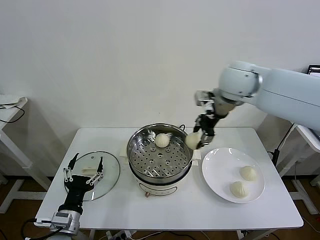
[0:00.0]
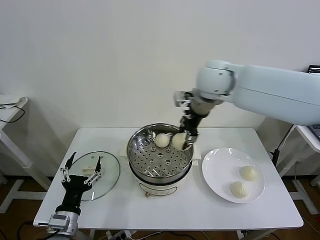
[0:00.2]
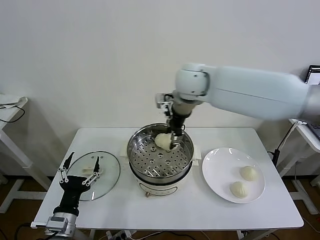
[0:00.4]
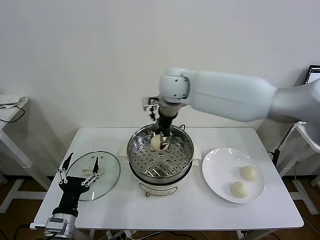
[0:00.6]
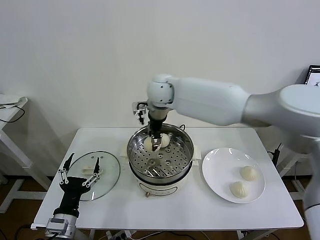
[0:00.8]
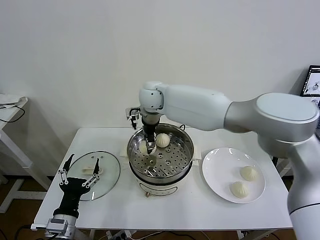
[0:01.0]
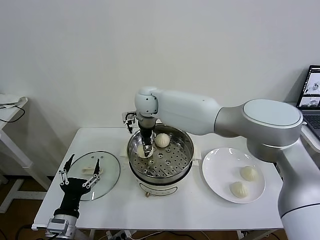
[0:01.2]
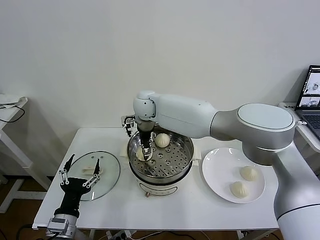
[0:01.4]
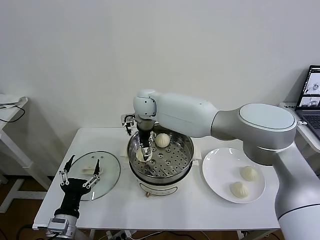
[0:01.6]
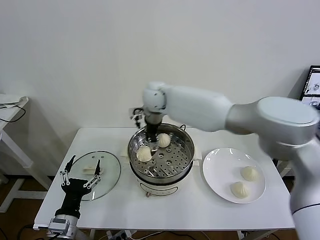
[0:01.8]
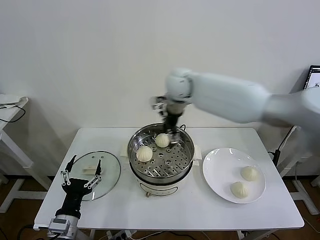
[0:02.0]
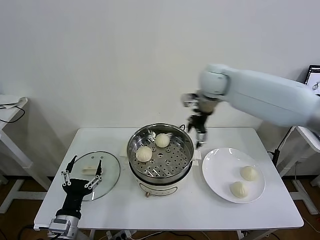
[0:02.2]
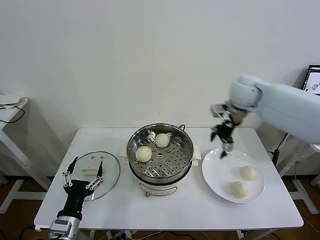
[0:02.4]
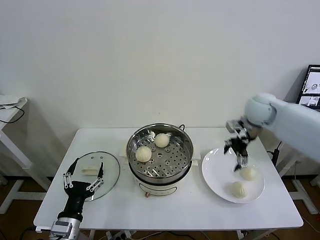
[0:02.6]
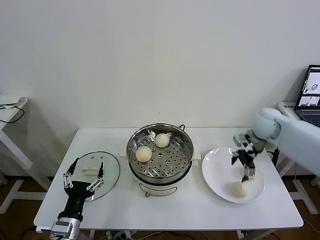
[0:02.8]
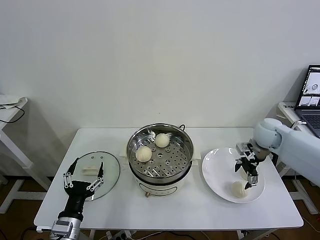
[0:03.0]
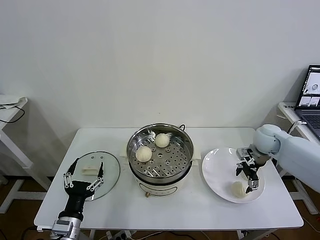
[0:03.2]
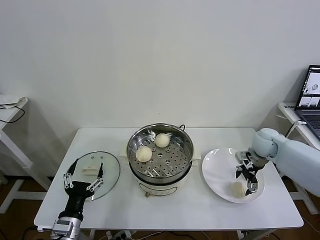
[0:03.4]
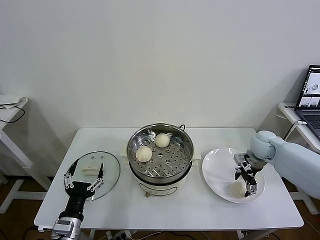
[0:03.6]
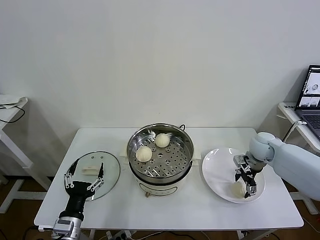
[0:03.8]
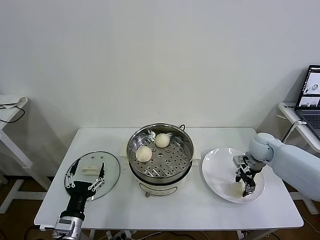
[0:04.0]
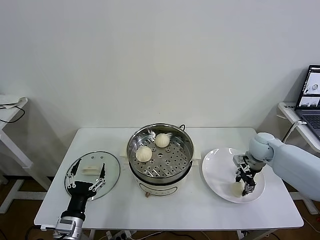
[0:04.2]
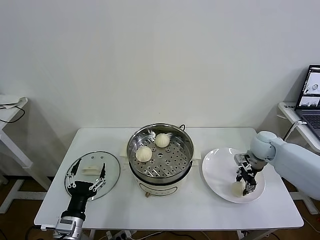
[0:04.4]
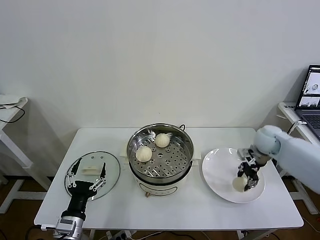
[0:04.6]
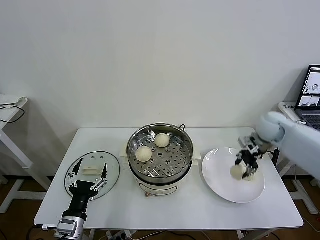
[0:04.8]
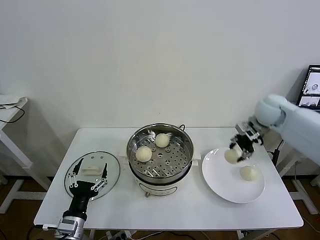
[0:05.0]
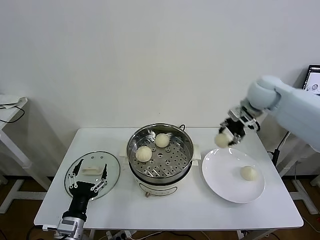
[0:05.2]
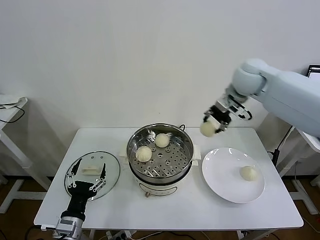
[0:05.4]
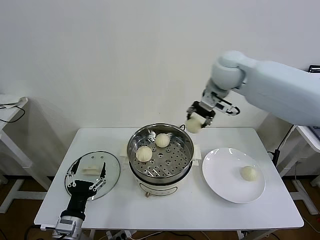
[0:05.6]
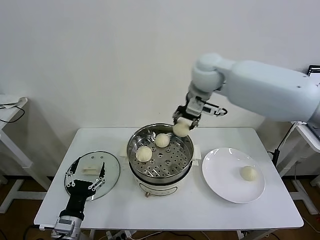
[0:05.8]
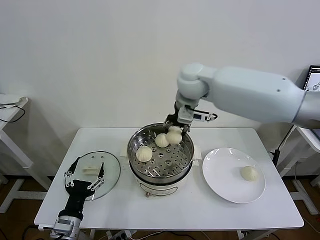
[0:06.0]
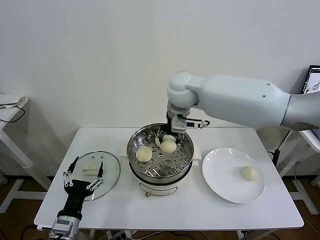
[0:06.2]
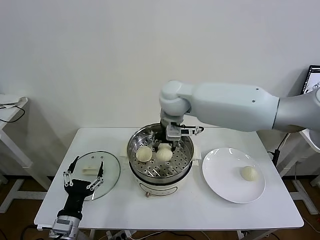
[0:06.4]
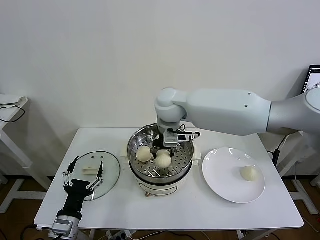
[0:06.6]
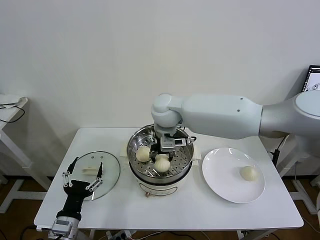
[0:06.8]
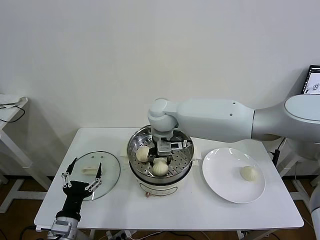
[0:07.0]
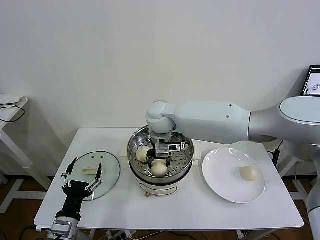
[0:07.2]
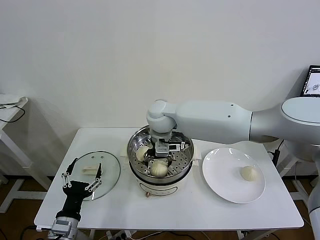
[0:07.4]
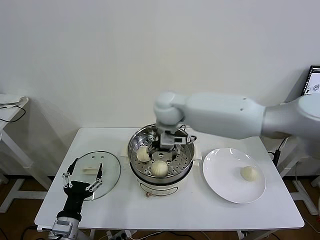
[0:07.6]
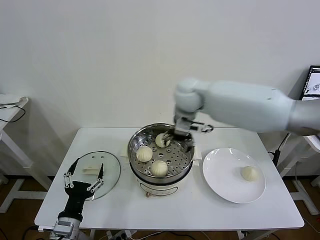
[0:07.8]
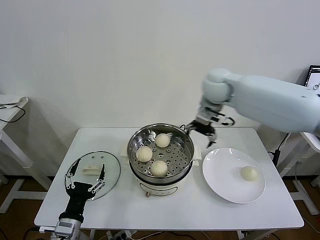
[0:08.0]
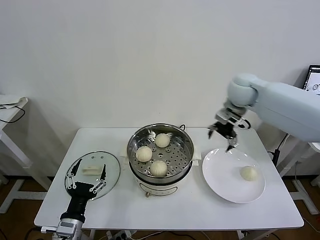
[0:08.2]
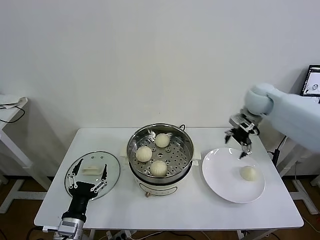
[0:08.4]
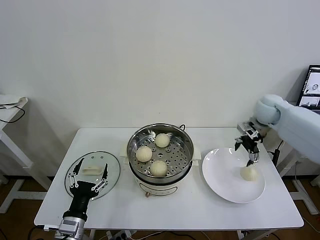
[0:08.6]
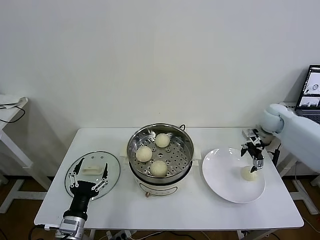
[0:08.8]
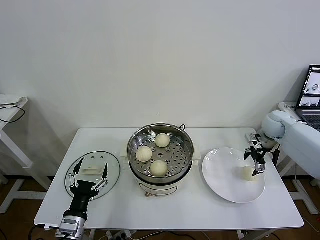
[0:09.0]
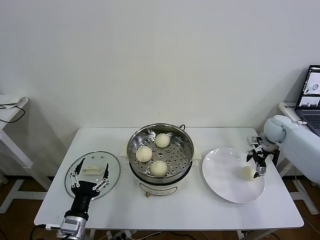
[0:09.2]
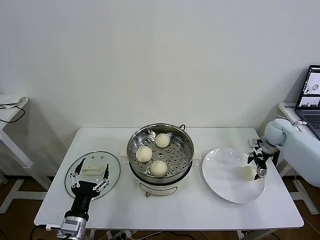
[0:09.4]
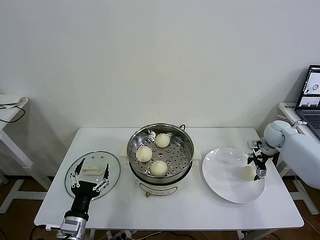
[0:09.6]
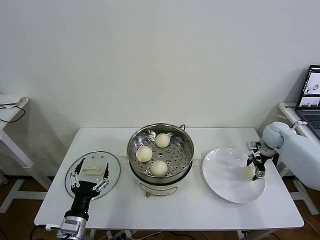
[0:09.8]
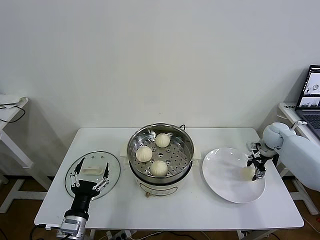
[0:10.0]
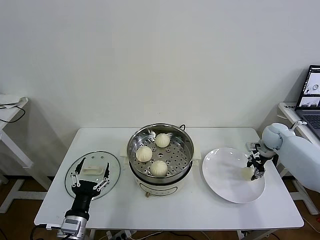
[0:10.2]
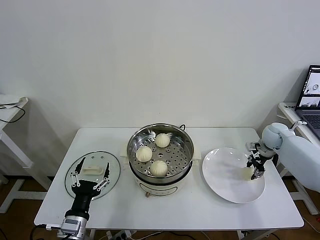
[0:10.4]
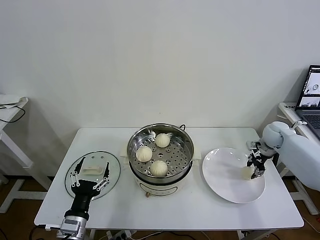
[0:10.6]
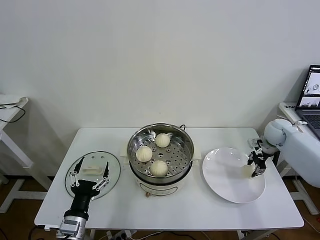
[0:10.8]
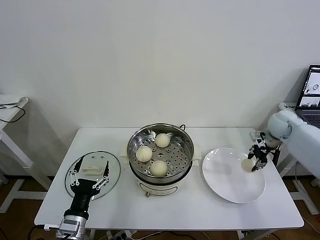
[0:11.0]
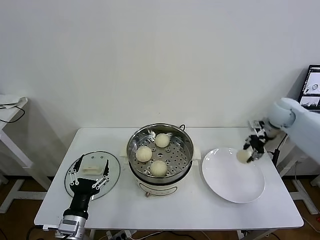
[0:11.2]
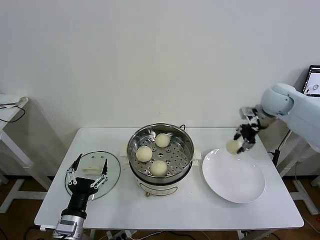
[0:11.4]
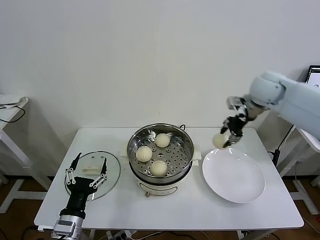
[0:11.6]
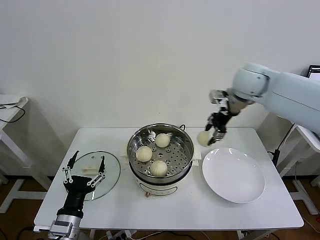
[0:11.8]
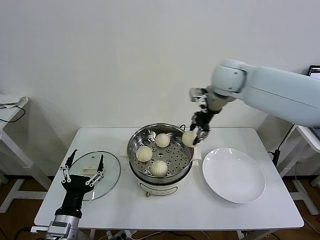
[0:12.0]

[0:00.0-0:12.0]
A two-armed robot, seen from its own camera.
Task of the whole recording: take steamed baozi put them in steamer then cover it.
Step, 0:00.0 to 0:01.6: Place the baozi on the steamer with right gripper.
Step, 0:01.8 to 0:04.2: Grasp the baozi in the plate with right gripper.
Step, 0:04.4 to 0:07.4: Place the baozi on the steamer with right gripper.
Step, 0:07.6 to 0:10.4: Grasp the baozi in the plate with right gripper.
0:00.0 to 0:01.6: The right gripper goes approximately 25 cm to the left and downward, and opens up.
0:01.6 to 0:03.0: The right gripper shifts roughly 40 cm to the right.
0:03.0 to 0:04.4: The right gripper closes its fingers.
0:04.4 to 0:06.0: The right gripper moves to the left and upward, about 40 cm.
0:06.0 to 0:07.6: The right gripper moves downward, some 5 cm, and opens up.
0:07.6 to 0:09.0: The right gripper moves to the right, some 40 cm.
0:09.0 to 0:10.4: The right gripper shifts about 5 cm downward, and closes its fingers.
0:10.4 to 0:12.0: The right gripper is displaced to the left and upward by approximately 35 cm.

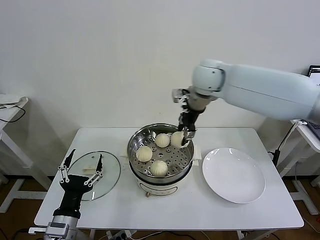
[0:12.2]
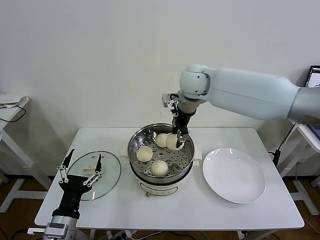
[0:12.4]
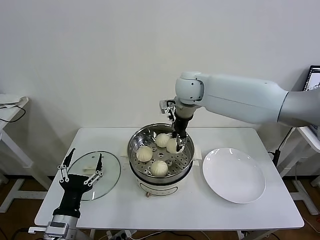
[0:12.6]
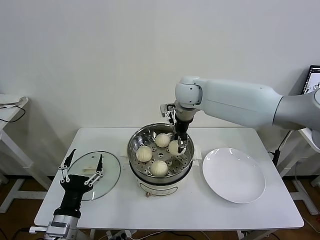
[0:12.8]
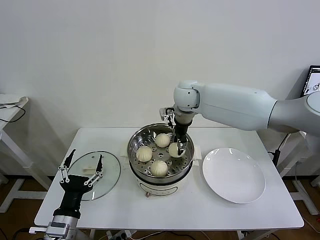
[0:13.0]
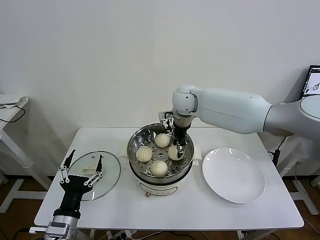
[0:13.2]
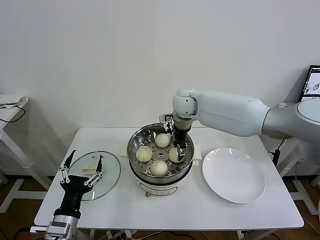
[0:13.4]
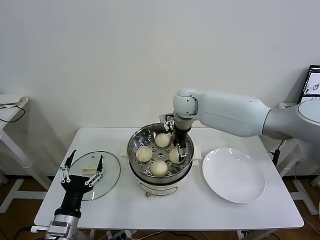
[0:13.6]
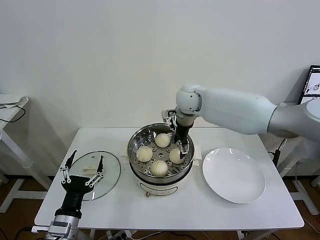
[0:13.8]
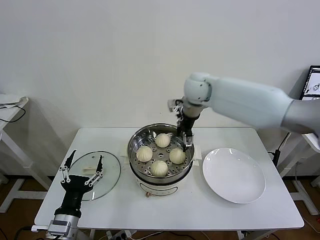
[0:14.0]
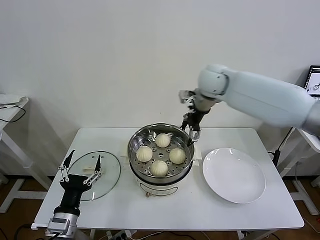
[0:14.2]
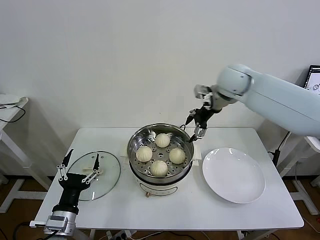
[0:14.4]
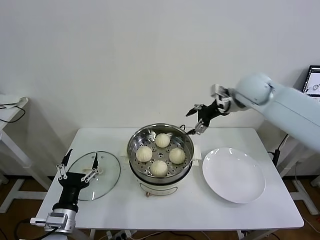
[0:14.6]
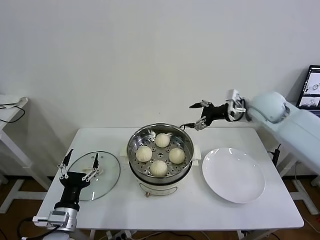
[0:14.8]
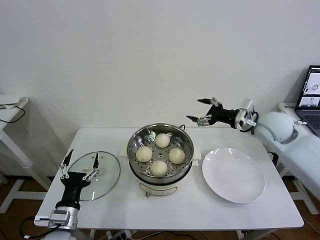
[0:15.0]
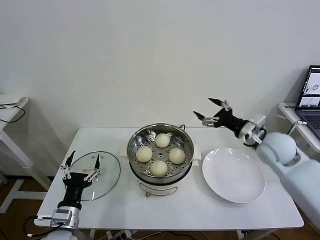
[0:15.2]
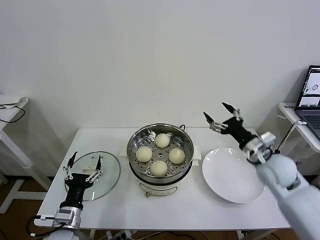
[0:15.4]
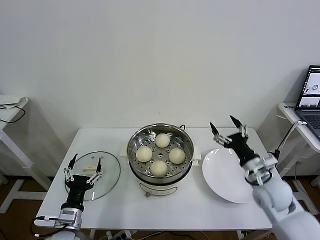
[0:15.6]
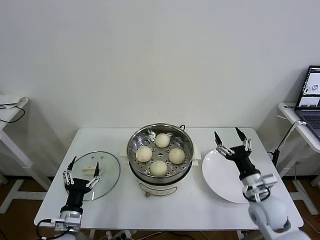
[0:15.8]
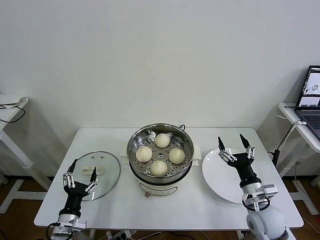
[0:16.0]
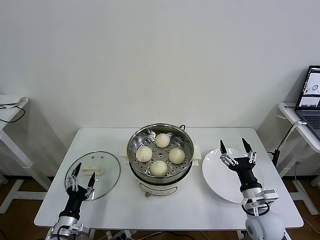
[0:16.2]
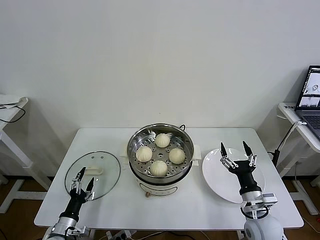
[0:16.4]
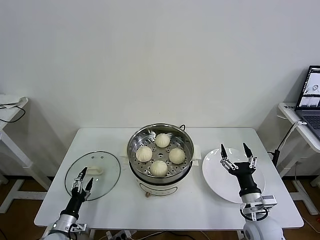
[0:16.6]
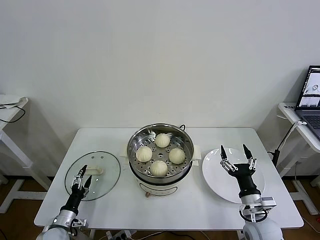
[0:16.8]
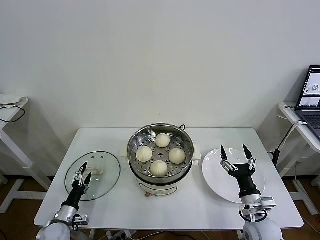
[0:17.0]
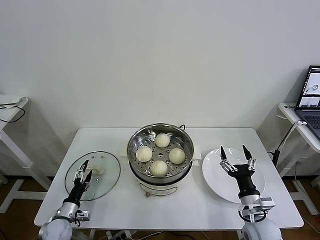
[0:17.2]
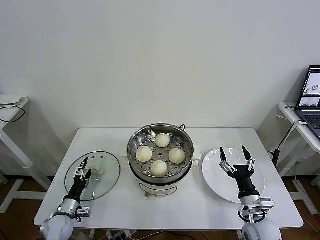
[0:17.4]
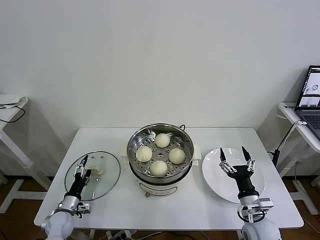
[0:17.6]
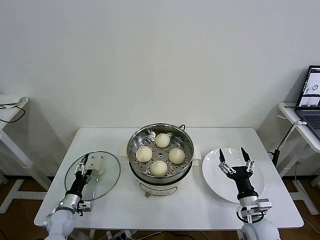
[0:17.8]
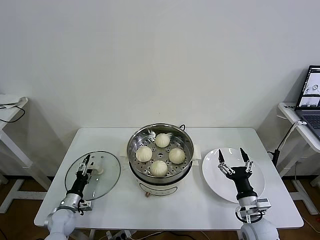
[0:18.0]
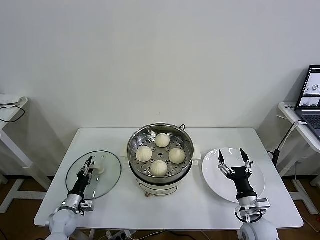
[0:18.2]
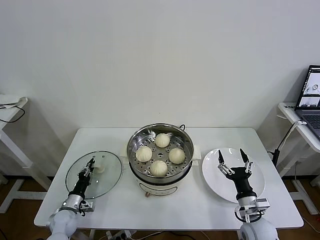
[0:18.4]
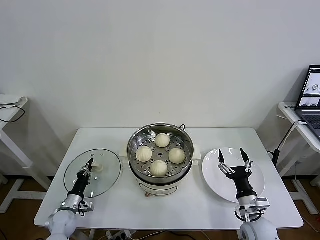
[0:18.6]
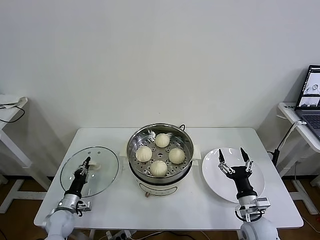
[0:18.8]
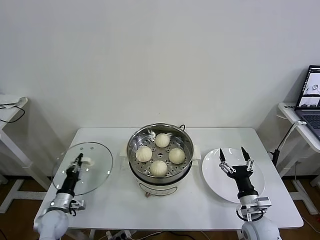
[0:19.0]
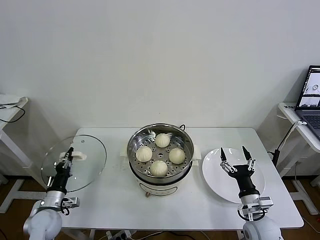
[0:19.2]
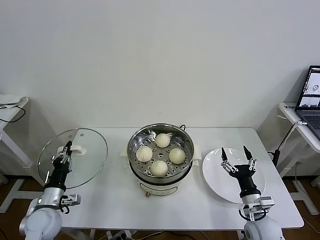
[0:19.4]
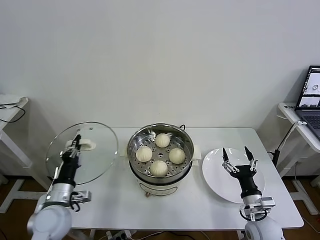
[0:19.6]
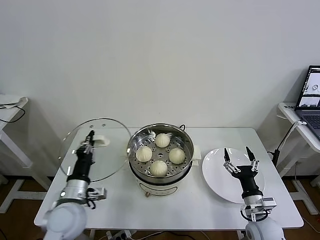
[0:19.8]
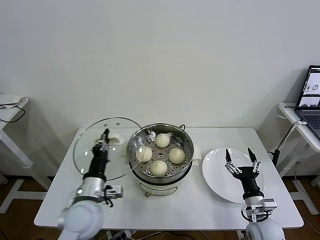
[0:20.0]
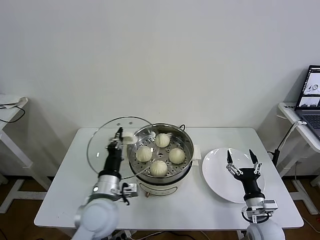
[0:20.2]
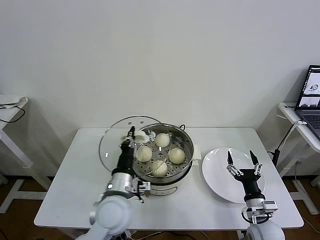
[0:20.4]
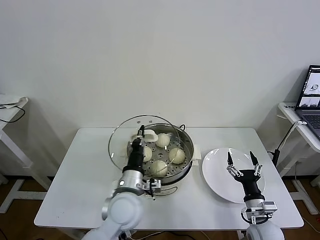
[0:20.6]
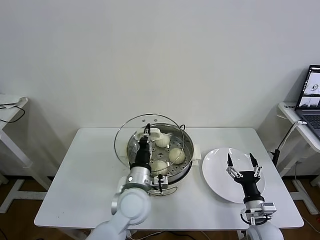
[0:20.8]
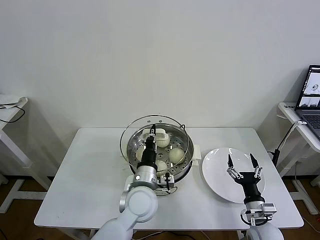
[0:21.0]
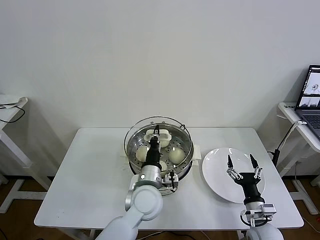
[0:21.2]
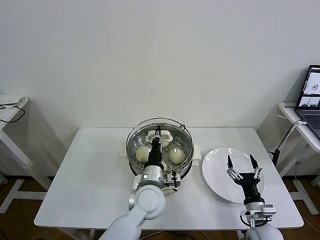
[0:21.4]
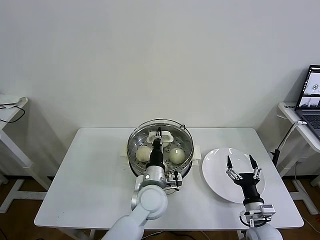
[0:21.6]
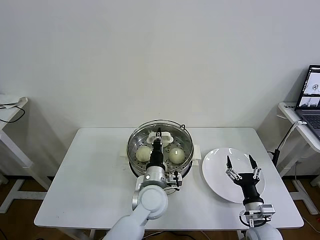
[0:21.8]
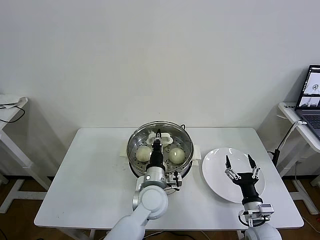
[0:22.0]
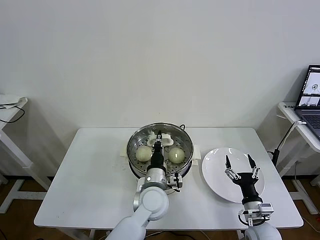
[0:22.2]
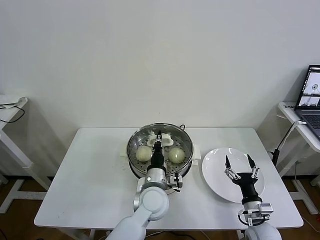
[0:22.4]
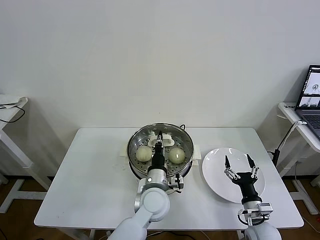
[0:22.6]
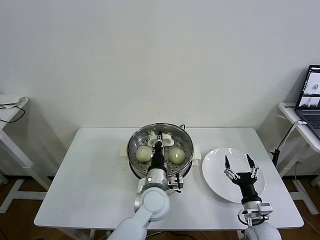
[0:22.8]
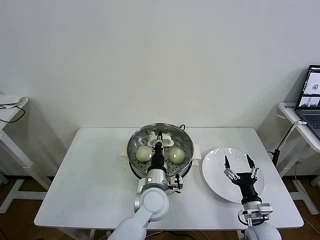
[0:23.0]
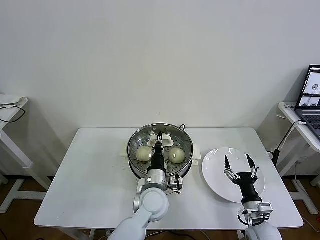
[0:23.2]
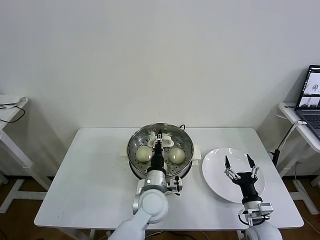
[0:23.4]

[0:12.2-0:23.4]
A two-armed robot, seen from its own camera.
Task of the whole recording: take steamed baozi put them in steamer then cover it.
Step, 0:12.2 to 0:13.8: Place the baozi on the steamer with right gripper.
Step, 0:14.0 to 0:18.6: Grasp the pot lid with left gripper.
0:12.2 to 0:13.8: The right gripper is displaced downward by about 10 cm, and opens its fingers.
0:13.8 to 0:15.4: The right gripper heads to the right, backward and downward, covering about 35 cm. The left gripper changes place by about 5 cm.
0:15.4 to 0:17.0: The left gripper travels downward and to the left by roughly 15 cm. The right gripper heads downward and backward, covering roughly 20 cm.
0:17.0 to 0:18.6: The left gripper heads forward, covering approximately 5 cm, and closes its fingers.
0:18.6 to 0:20.2: The left gripper is displaced upward and to the right by about 30 cm.
0:20.2 to 0:21.8: The left gripper goes roughly 15 cm to the right.
0:21.8 to 0:23.4: The grippers move only a little.
